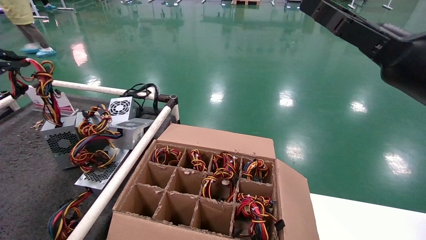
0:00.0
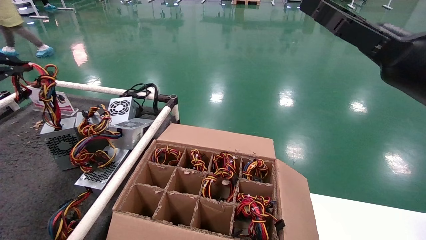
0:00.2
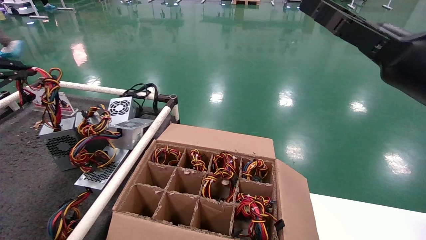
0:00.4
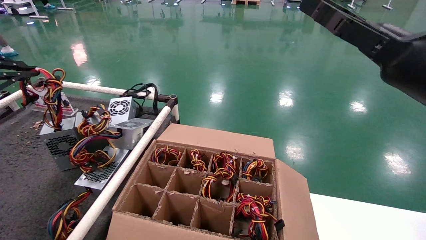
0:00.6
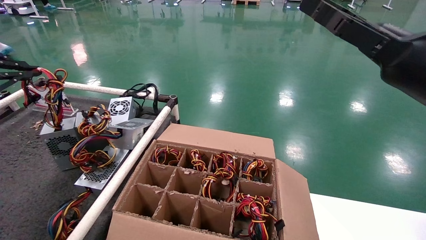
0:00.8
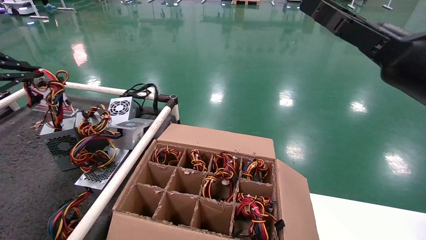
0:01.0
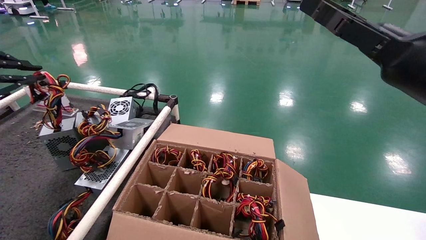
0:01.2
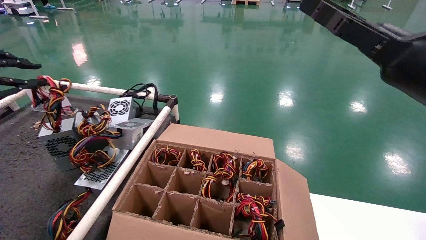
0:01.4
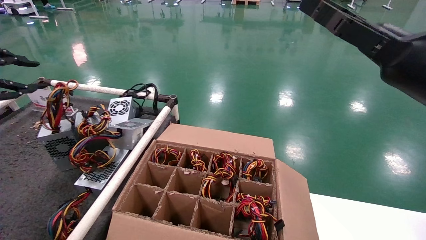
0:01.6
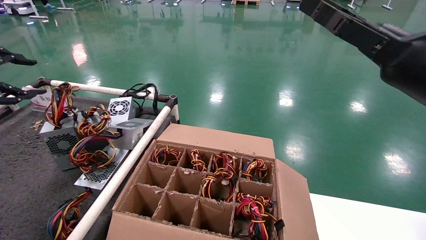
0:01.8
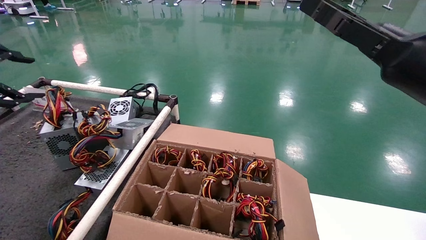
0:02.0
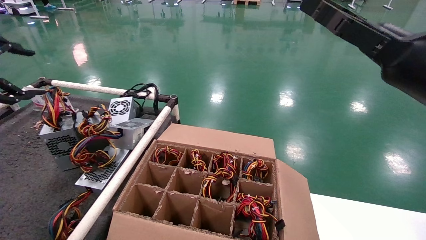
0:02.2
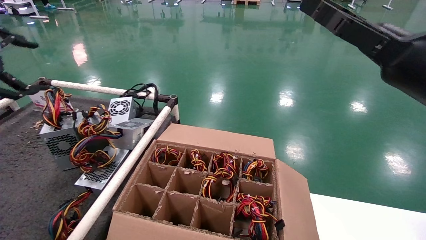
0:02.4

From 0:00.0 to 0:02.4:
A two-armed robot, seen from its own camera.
From 0:00.0 to 0:01.2: There are only small adjustments of the grippers.
From 0:01.2 to 0:02.4: The left gripper opens up.
